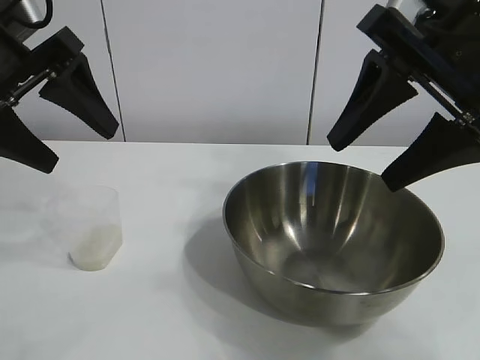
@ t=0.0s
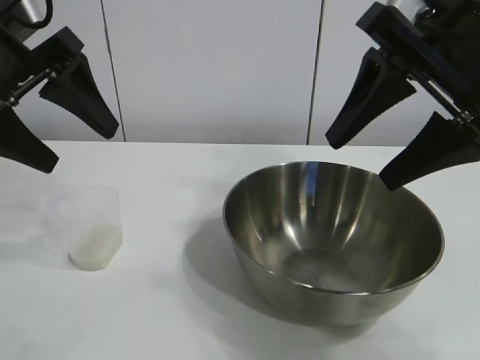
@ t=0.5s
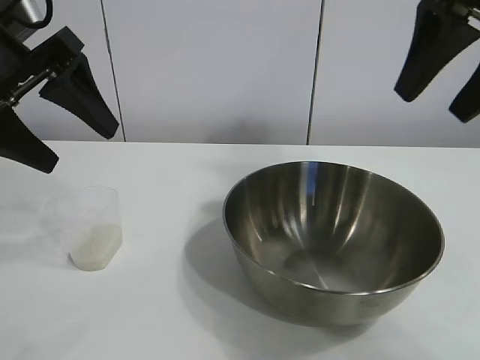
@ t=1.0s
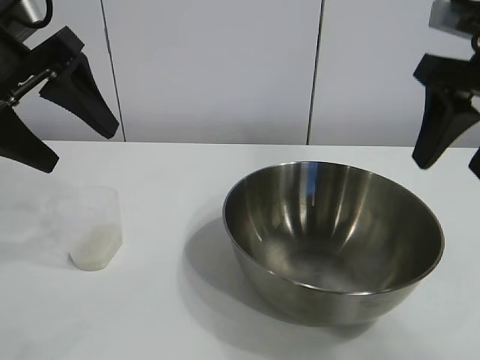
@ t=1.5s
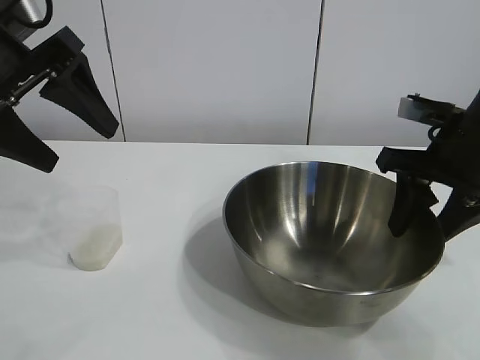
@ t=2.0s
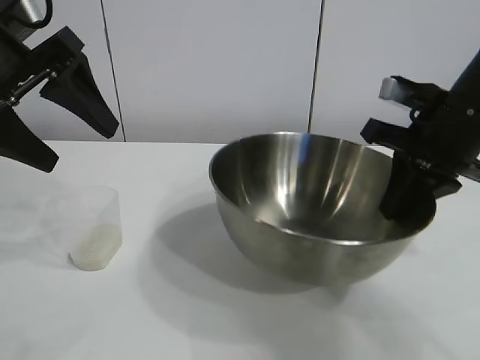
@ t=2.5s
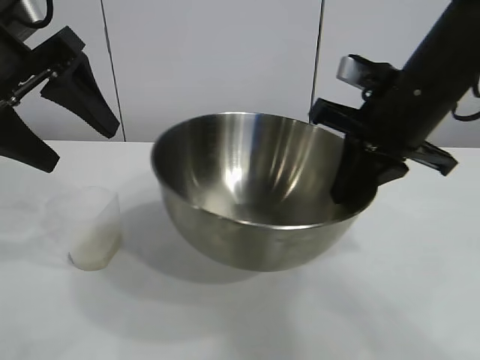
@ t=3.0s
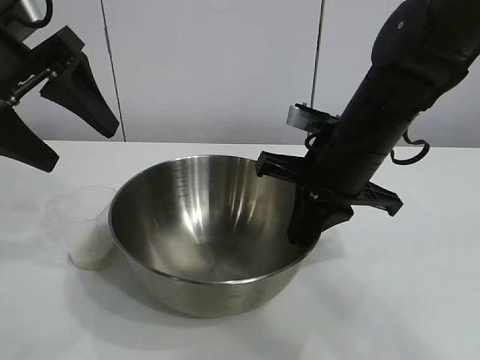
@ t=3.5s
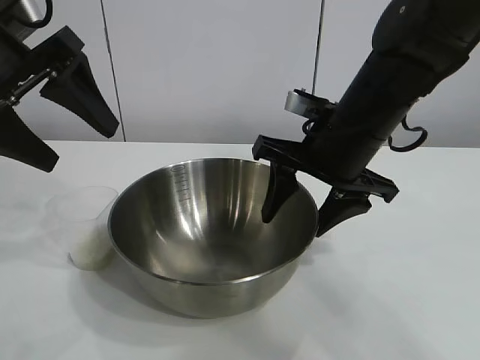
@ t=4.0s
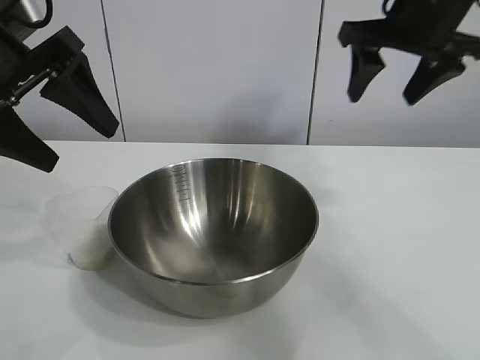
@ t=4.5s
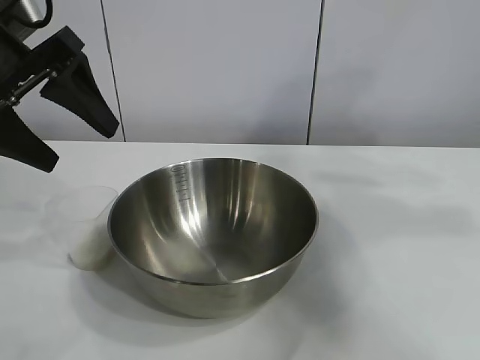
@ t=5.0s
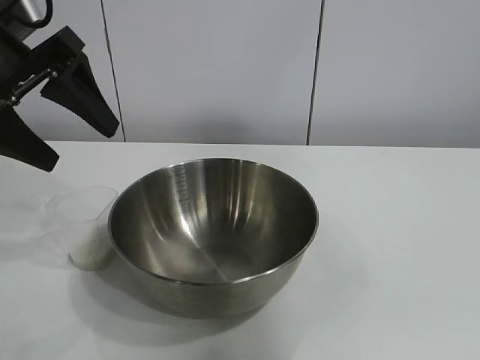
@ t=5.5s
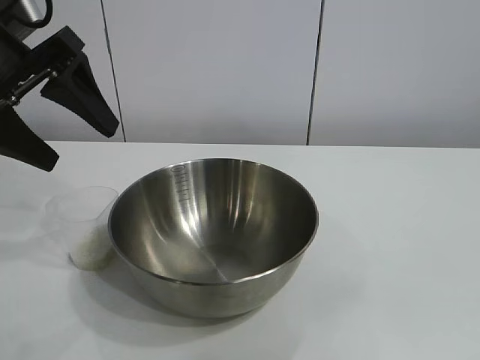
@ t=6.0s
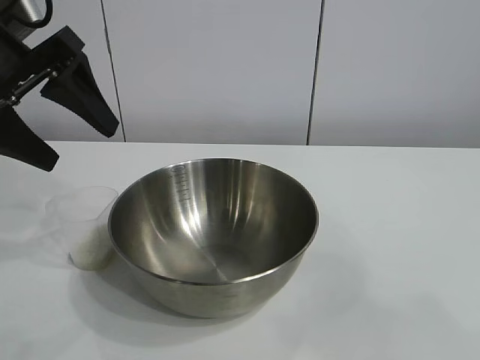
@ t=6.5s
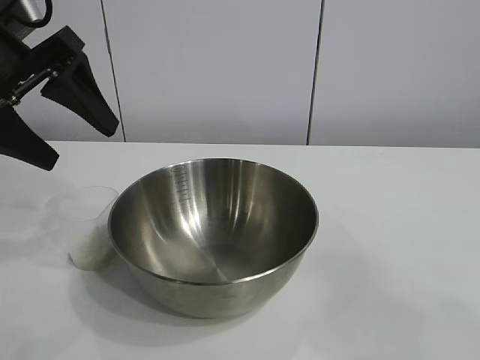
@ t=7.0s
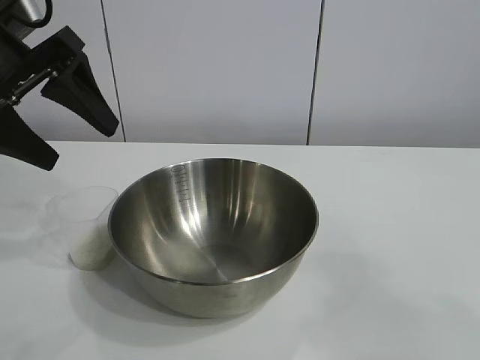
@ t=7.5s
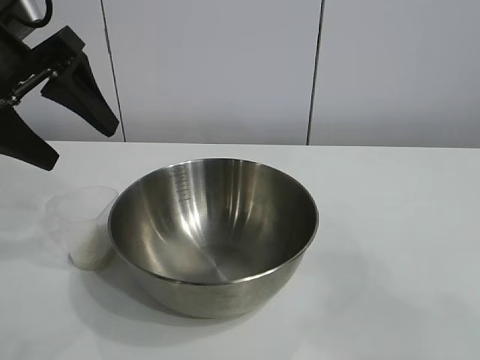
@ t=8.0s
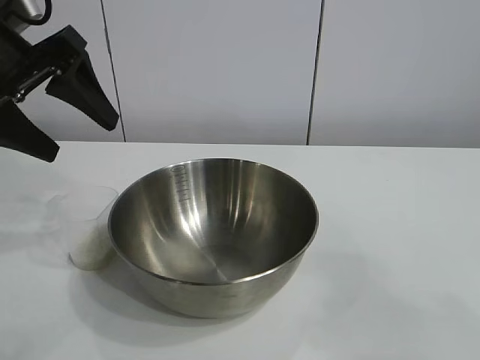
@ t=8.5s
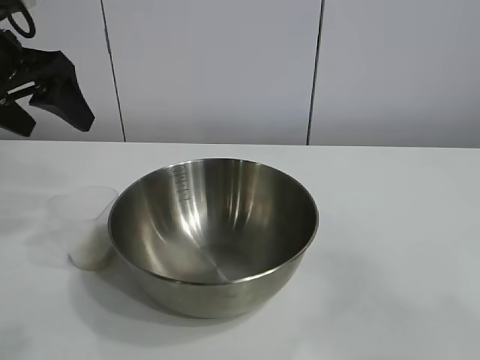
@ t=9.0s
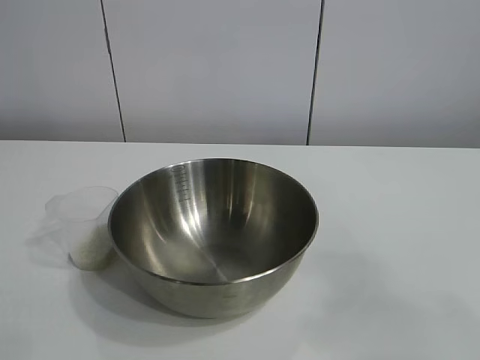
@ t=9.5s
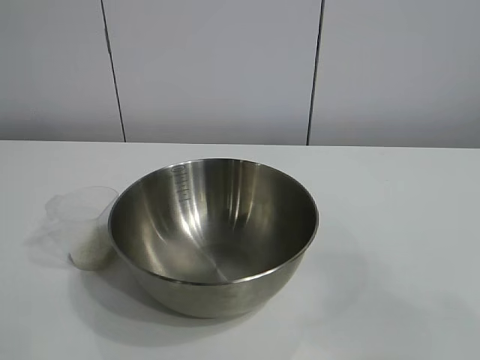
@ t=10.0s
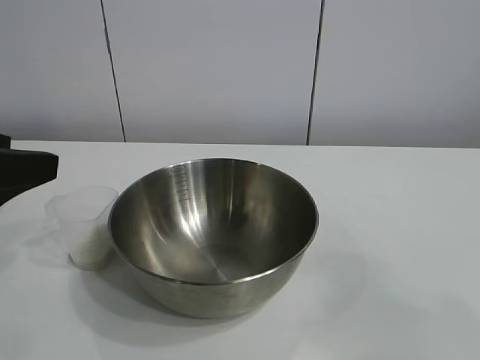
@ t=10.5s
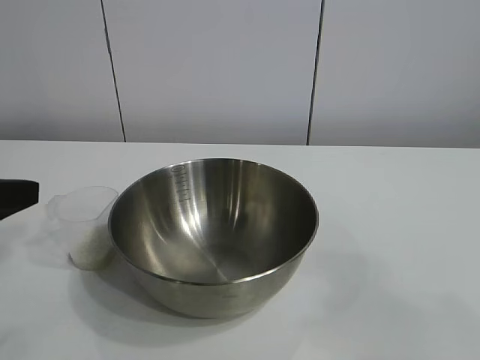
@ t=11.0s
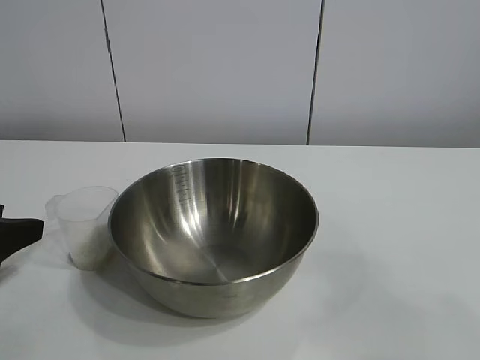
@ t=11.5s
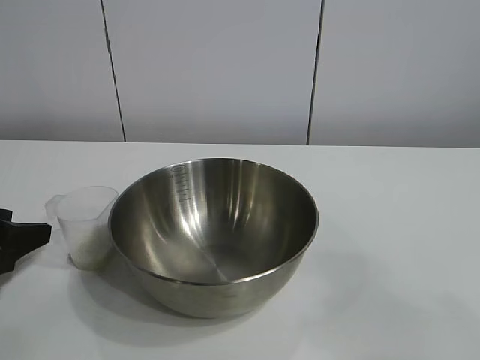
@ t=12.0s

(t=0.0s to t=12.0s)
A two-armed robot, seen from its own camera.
Task of the whole recording: the right gripper grasp the rice container and place it in the center of the table, the left gripper grasp the rice scoop and pour the rice into the rice container.
Step, t=1.0s - t=4.0s: Move the bowl in the center of view with right gripper.

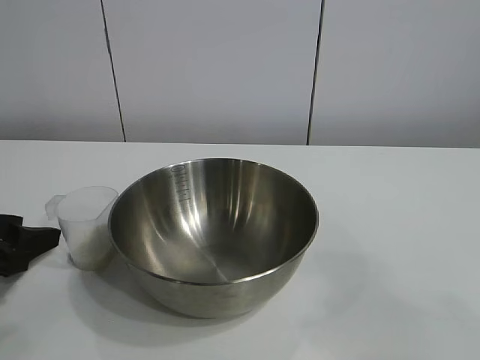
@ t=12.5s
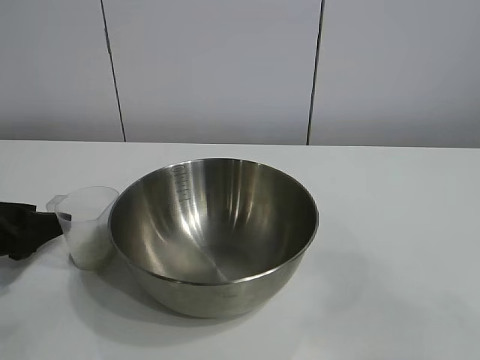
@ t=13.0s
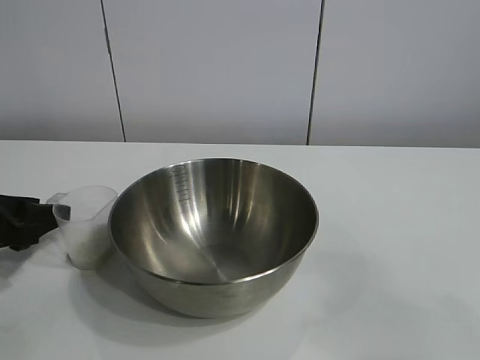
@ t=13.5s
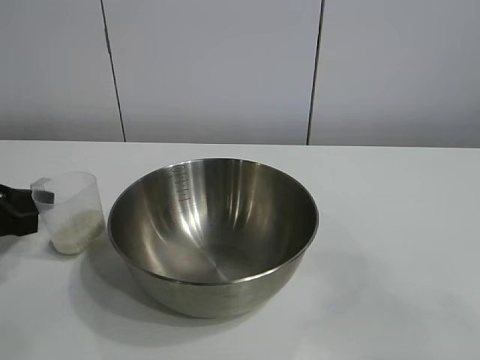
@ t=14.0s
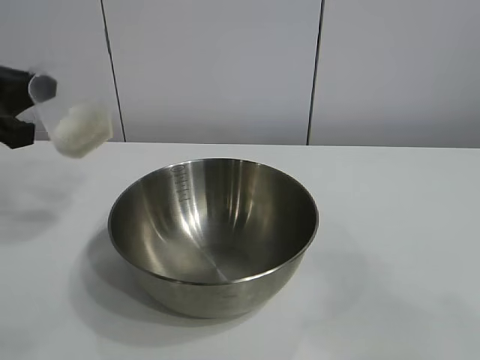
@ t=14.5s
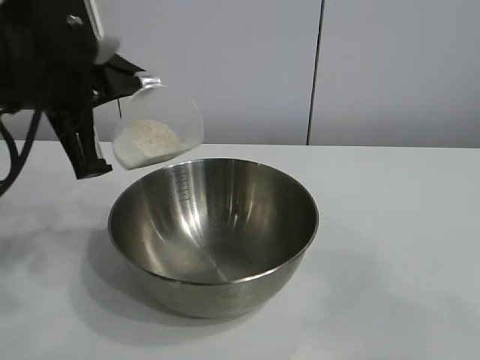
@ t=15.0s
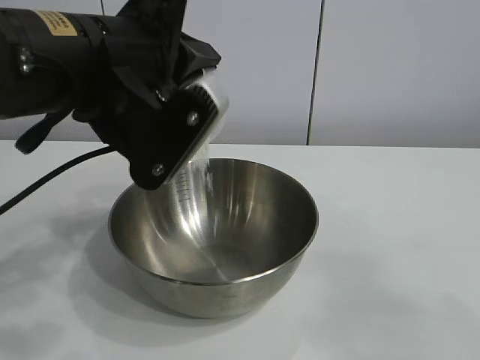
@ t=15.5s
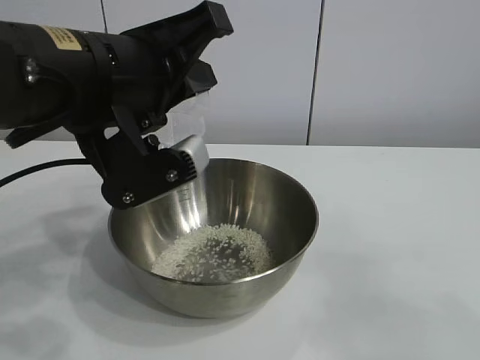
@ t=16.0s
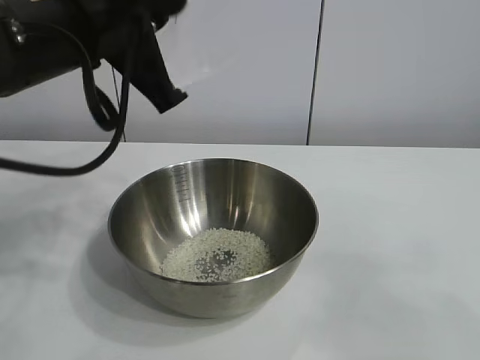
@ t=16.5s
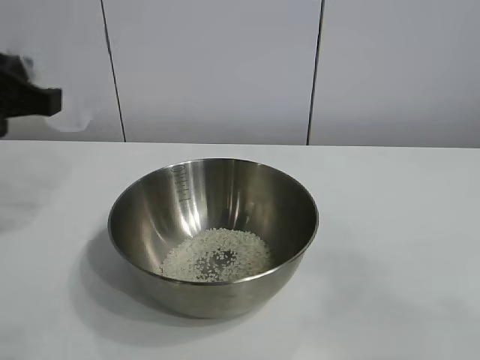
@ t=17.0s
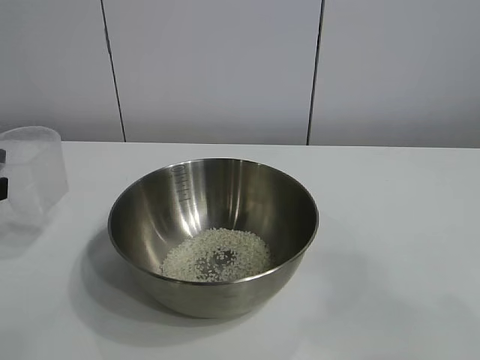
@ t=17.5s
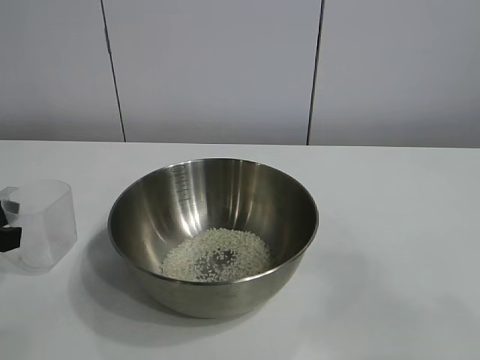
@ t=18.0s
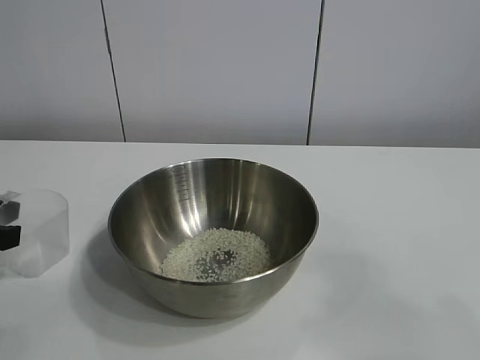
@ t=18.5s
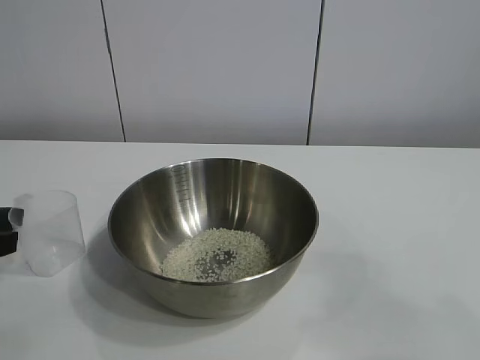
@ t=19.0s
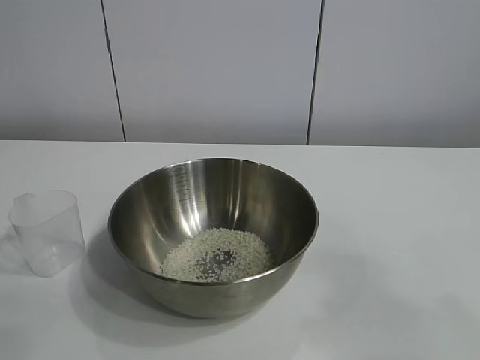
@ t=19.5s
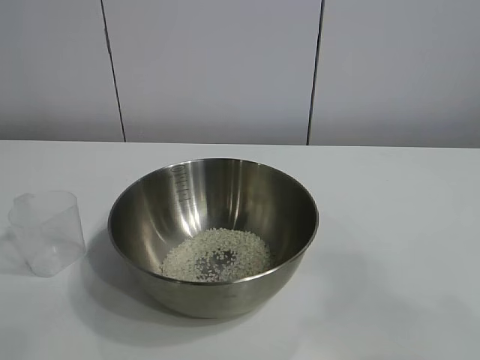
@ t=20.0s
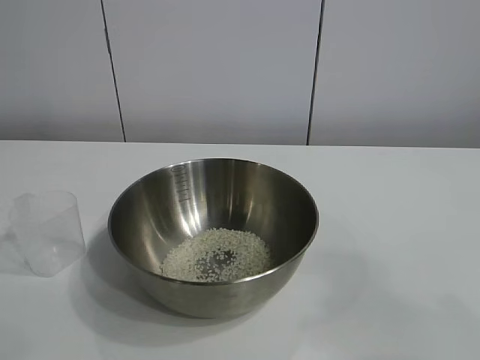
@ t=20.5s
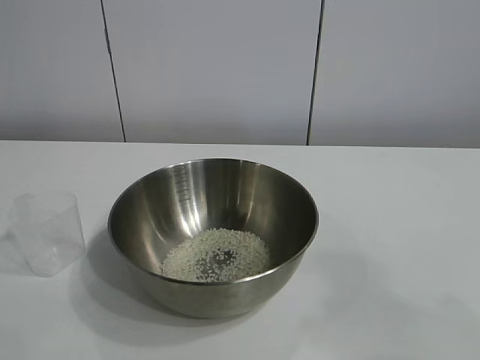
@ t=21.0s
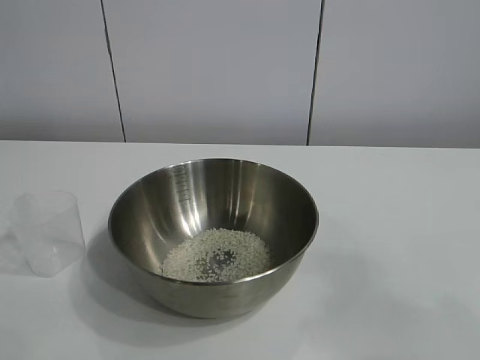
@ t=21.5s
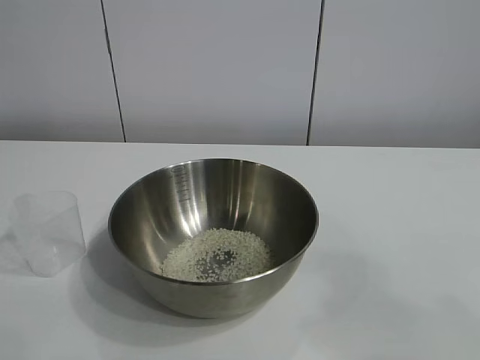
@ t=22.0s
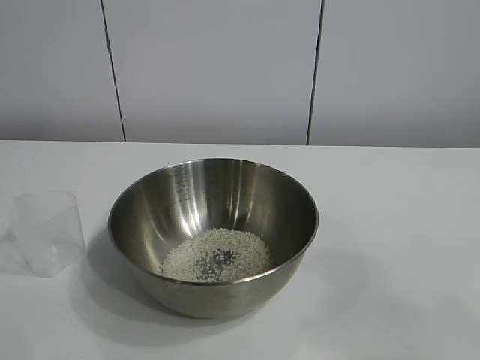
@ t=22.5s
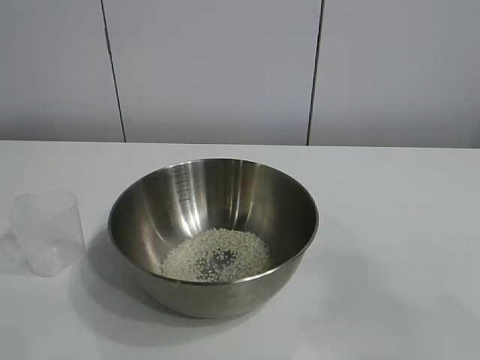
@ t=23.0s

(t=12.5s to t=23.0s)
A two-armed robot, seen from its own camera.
Task of the whole recording: the right gripper grasp the rice container and place it in the center of the table, the left gripper grasp the rice scoop and pour the rice into the rice container.
Step, t=14.0s - t=16.0s: Pour the rice from the cup into the bowl with the left gripper.
Step, t=16.5s - t=18.5s: Place the cup on the table with the left gripper.
